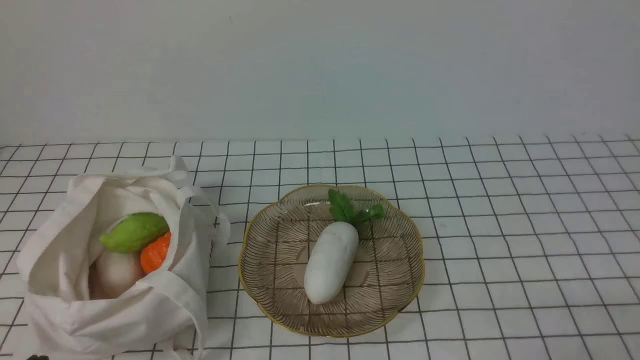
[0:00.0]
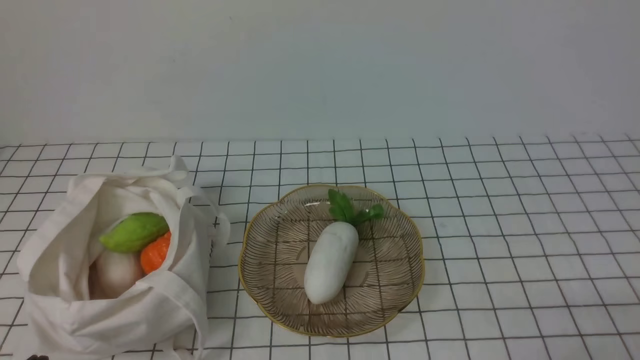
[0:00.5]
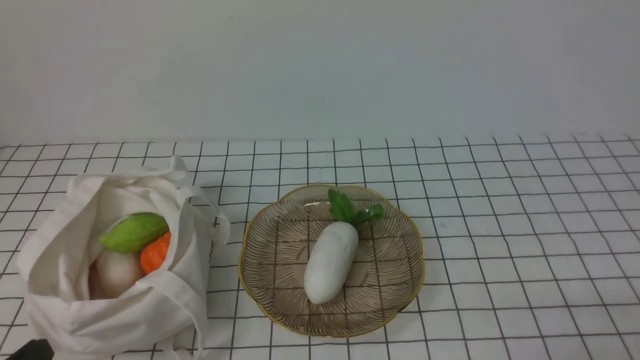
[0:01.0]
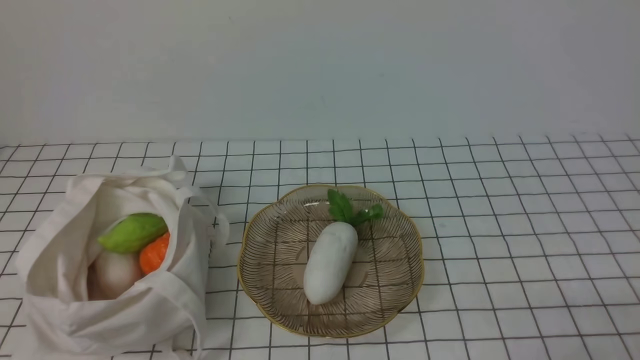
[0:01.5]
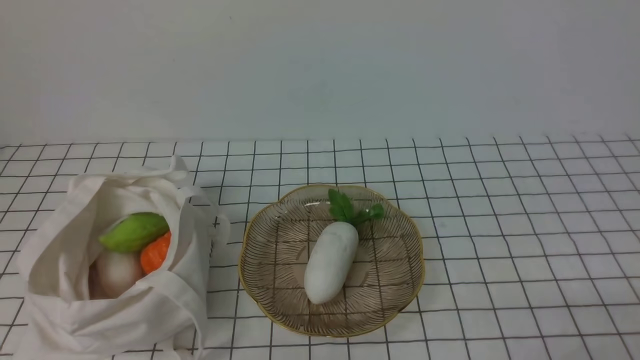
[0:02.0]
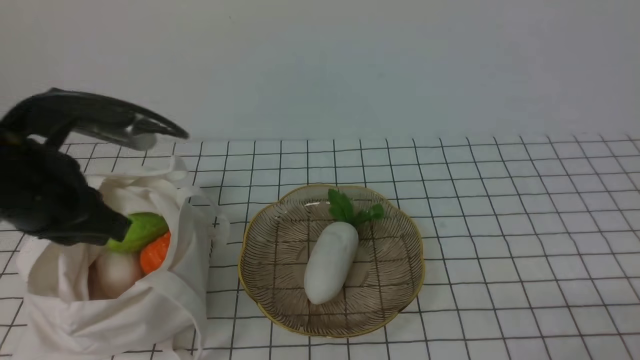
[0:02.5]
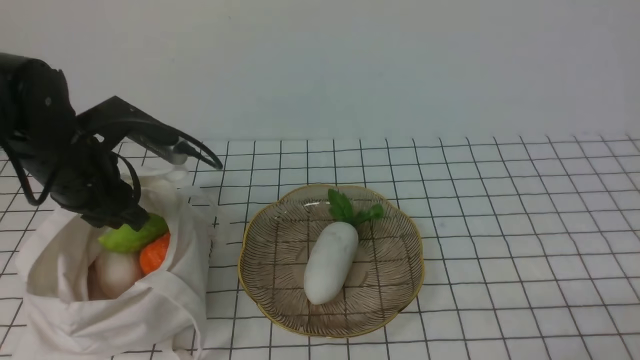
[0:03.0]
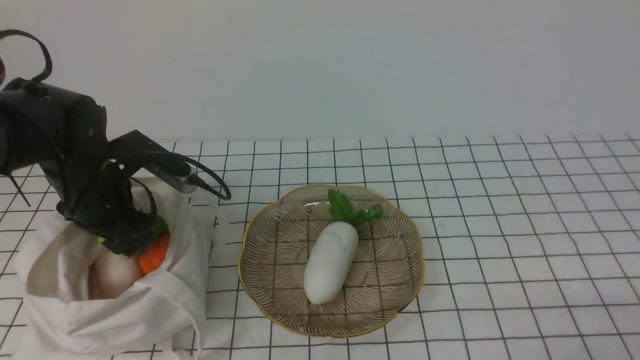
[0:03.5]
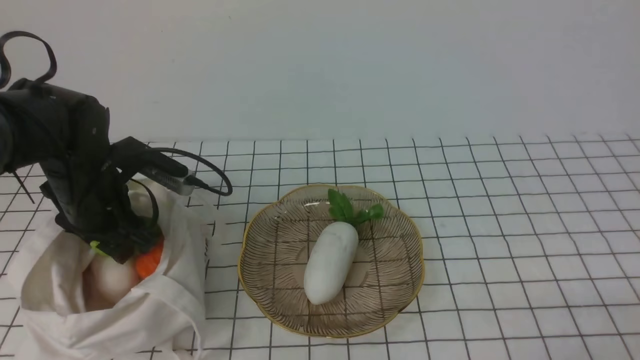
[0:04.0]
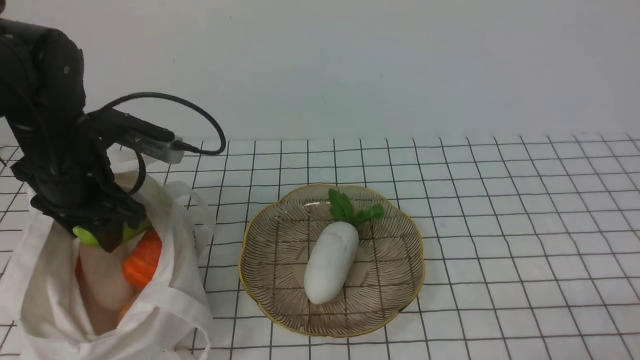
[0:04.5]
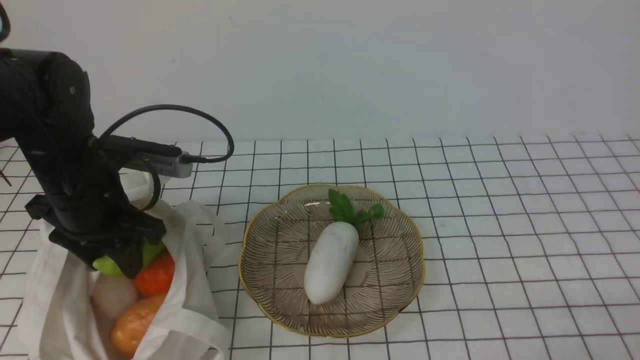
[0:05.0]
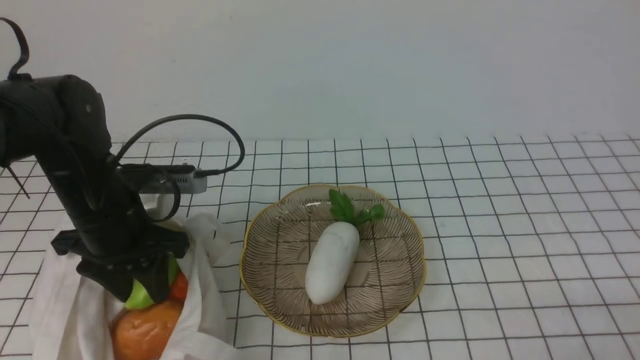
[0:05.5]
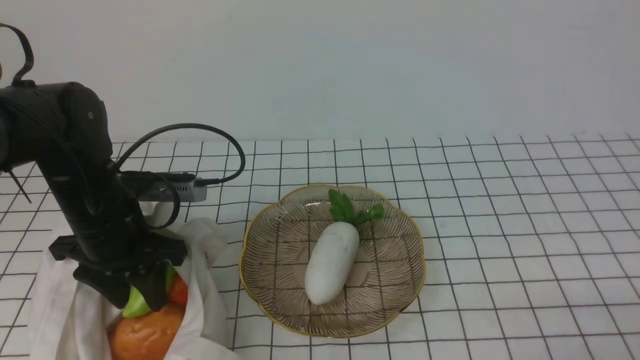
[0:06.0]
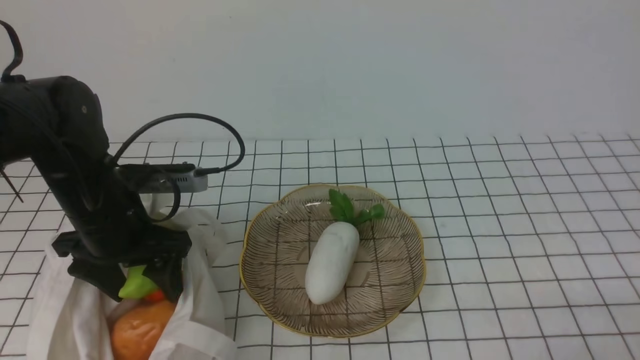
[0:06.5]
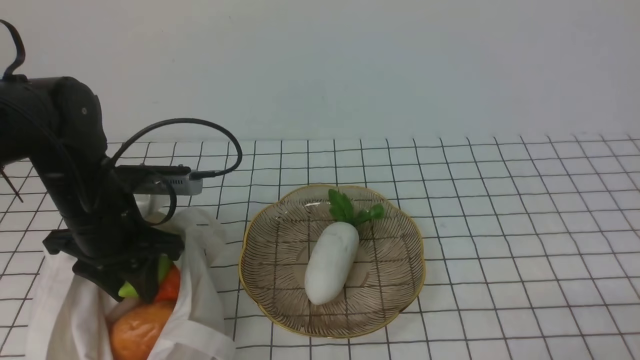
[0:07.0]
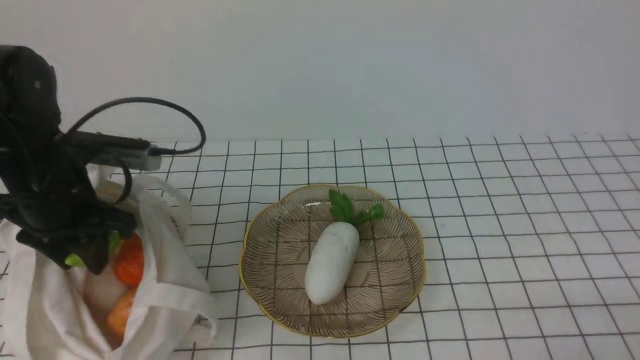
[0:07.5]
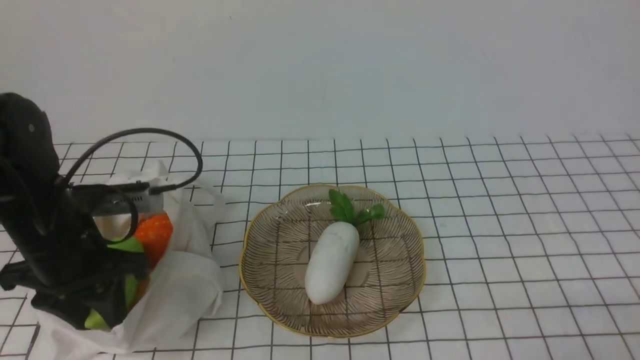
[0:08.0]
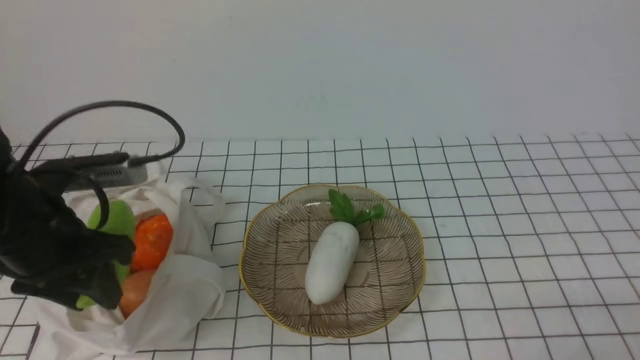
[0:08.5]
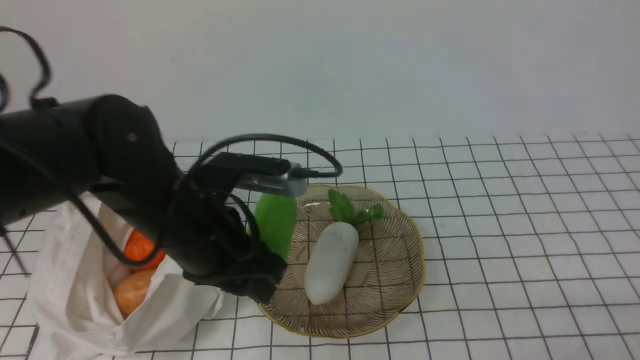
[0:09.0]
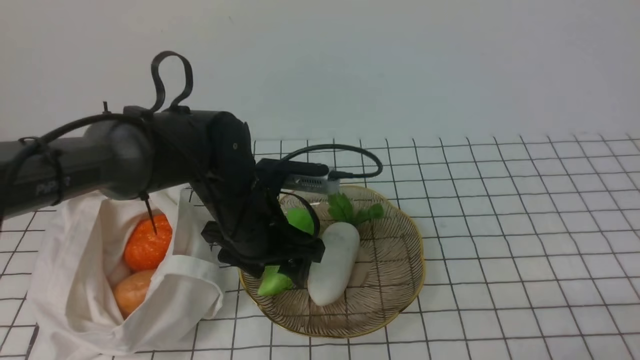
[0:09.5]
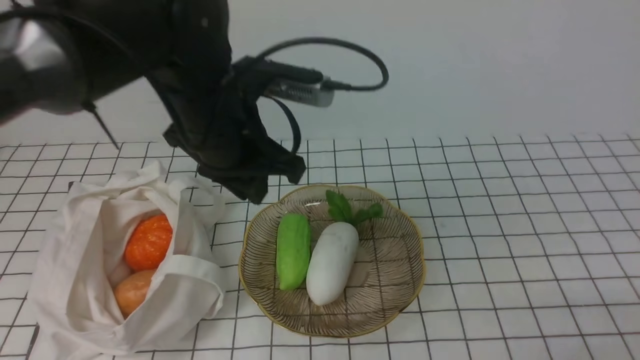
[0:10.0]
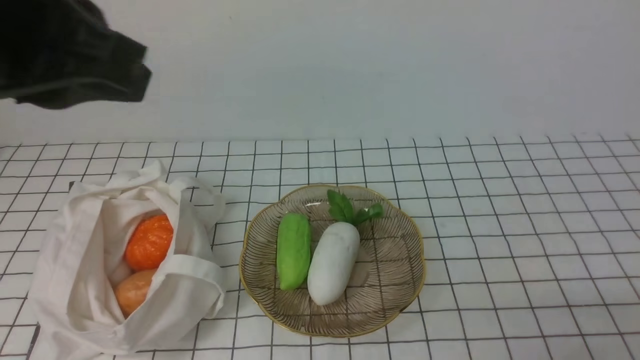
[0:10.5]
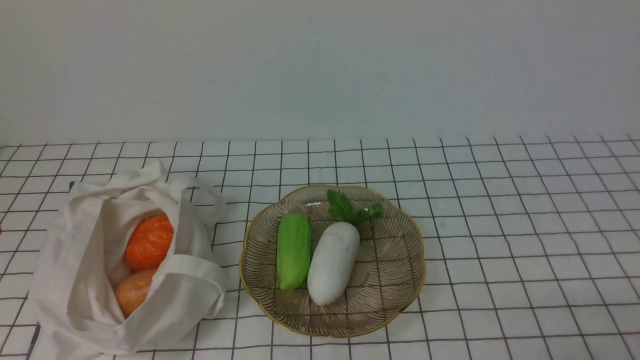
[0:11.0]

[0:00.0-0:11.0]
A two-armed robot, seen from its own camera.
Task of the whole recording: take vegetables from bag on white checkered tablecloth place on plate.
Step, 0:00.0 to 0:07.0: Grasp the bitter melon with left gripper.
Step, 0:07.5 to 0:09.5: Place the bitter melon on the plate with left gripper.
0:02.0 to 0:03.5: The left gripper goes roughly 25 cm forward, and opens.
0:05.5 to 0:07.5: The left gripper opens, then closes once more.
0:07.5 to 0:09.0: The left gripper travels to the right by roughly 10 cm.
0:09.0 to 0:11.0: The left gripper travels backward, upward and to the left by some 25 cm, and closes its fingers.

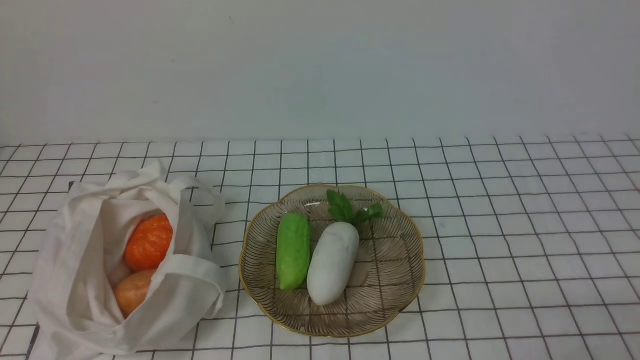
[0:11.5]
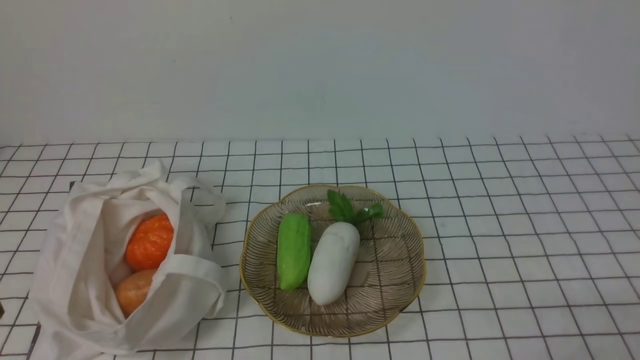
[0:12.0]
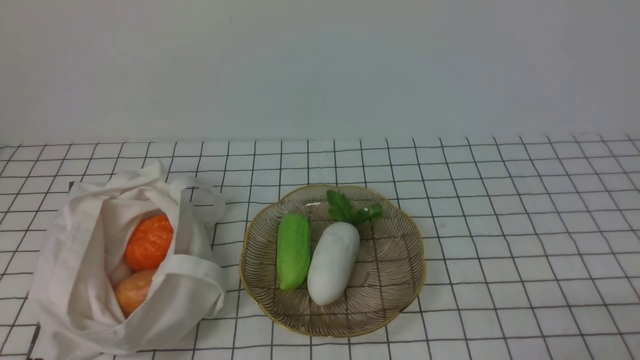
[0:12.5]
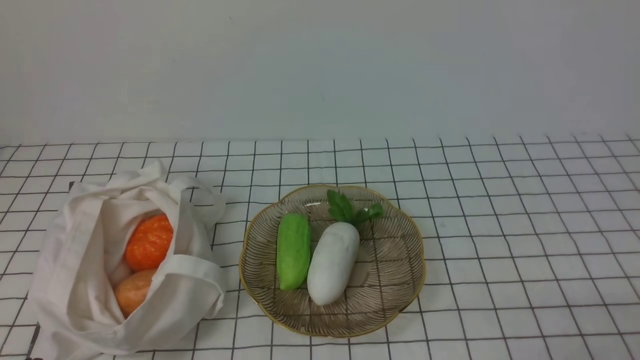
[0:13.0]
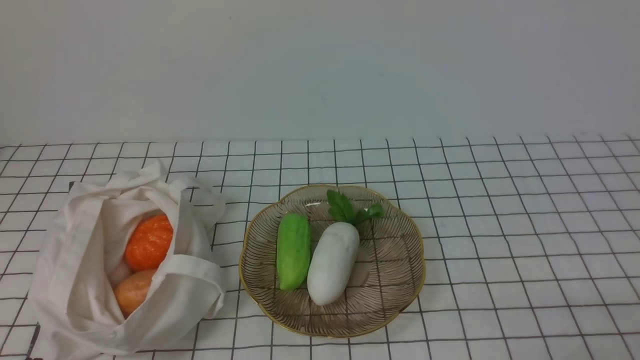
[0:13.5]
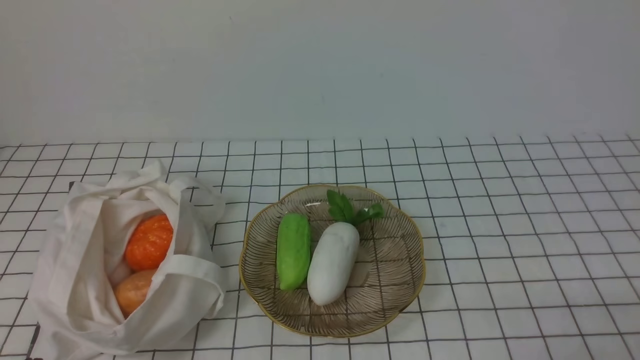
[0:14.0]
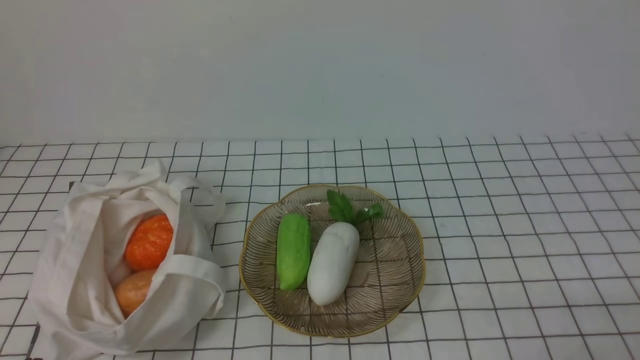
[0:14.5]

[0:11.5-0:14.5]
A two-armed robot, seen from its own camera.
Task of the whole recording: take vegetables from bag on white checkered tablecloth place on plate.
0:13.0 to 0:14.5: The two grippers keep their place.
